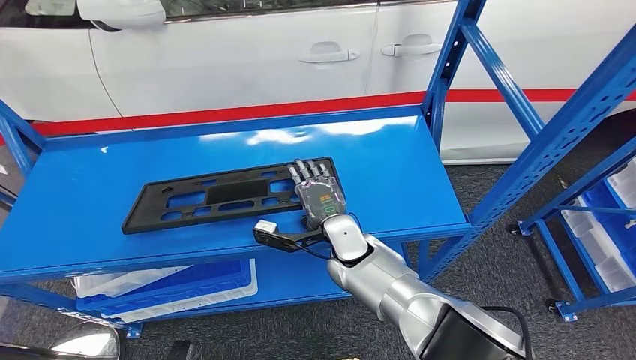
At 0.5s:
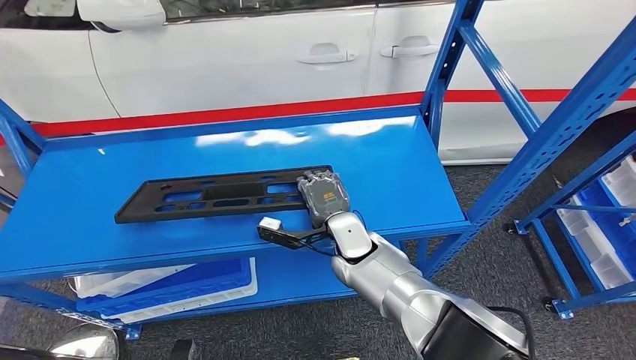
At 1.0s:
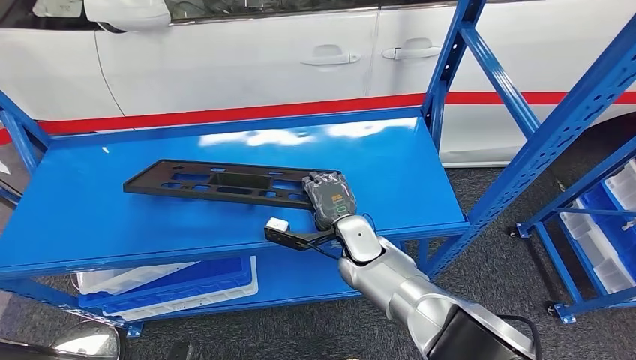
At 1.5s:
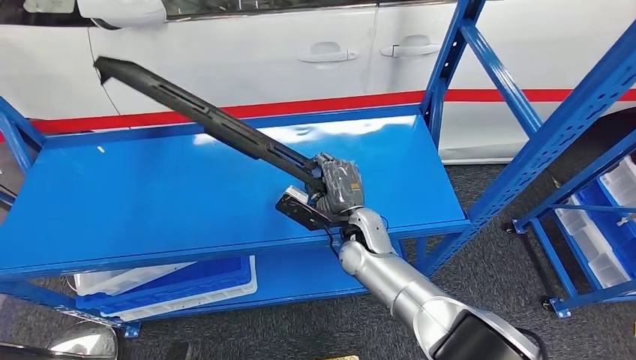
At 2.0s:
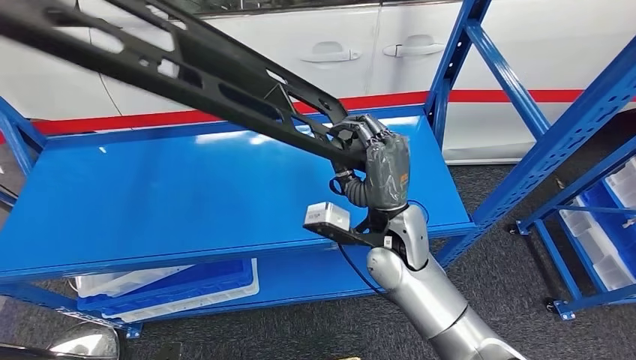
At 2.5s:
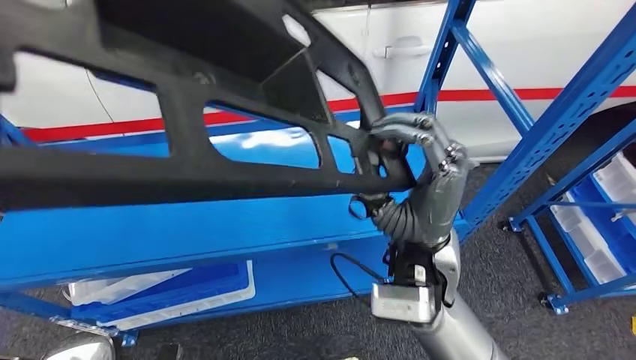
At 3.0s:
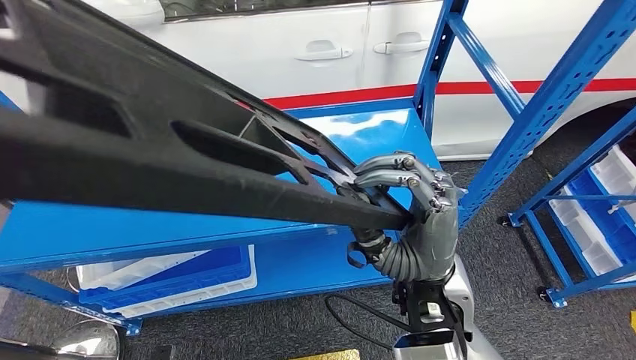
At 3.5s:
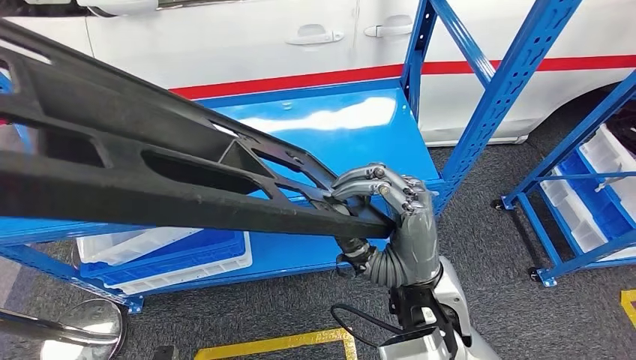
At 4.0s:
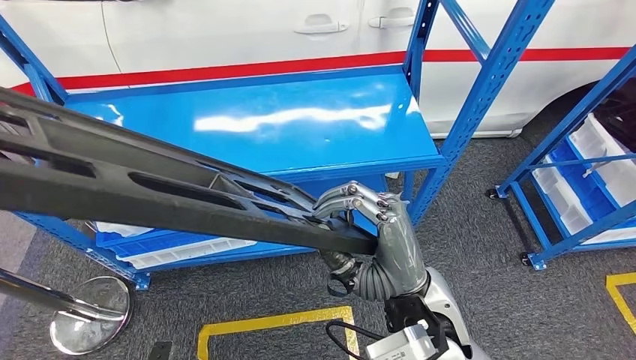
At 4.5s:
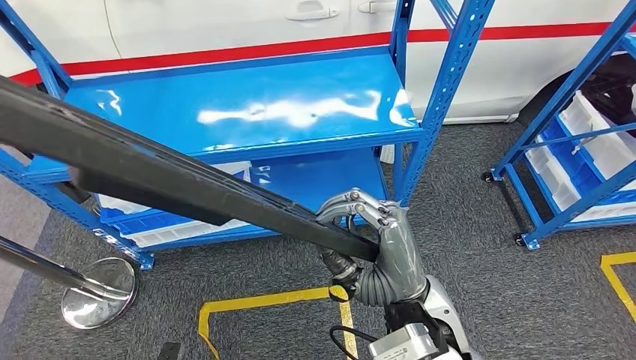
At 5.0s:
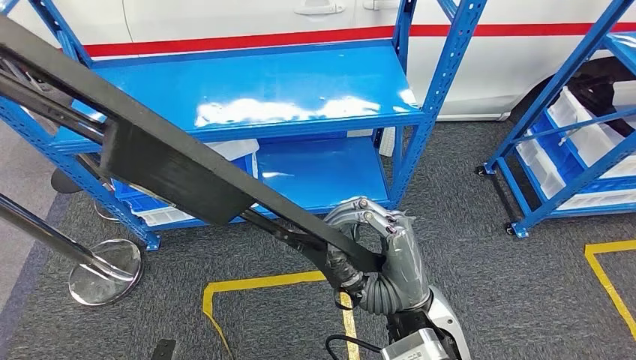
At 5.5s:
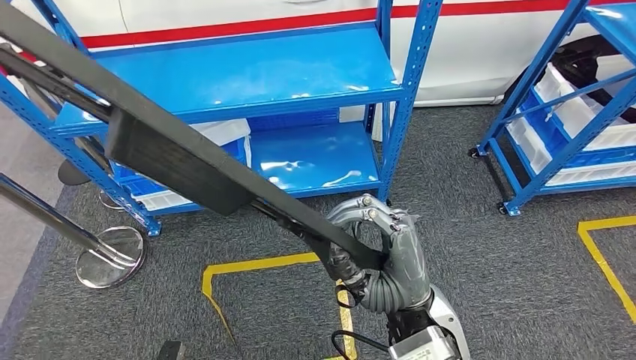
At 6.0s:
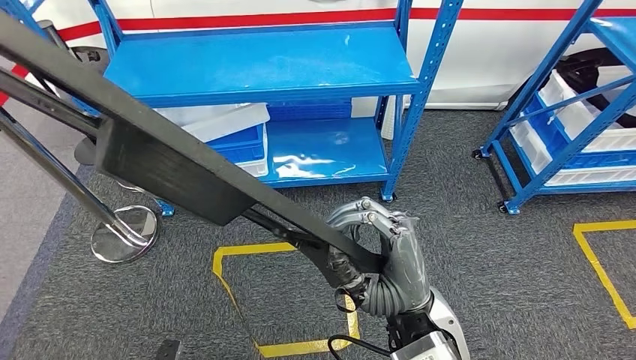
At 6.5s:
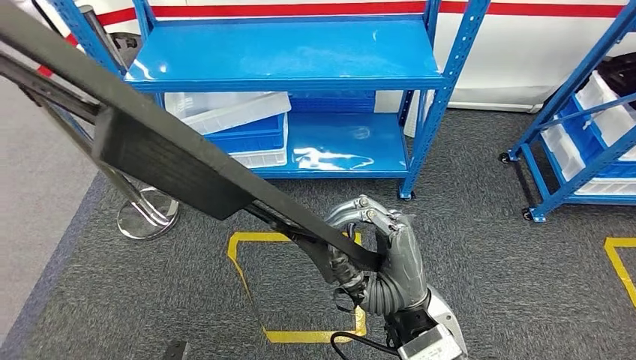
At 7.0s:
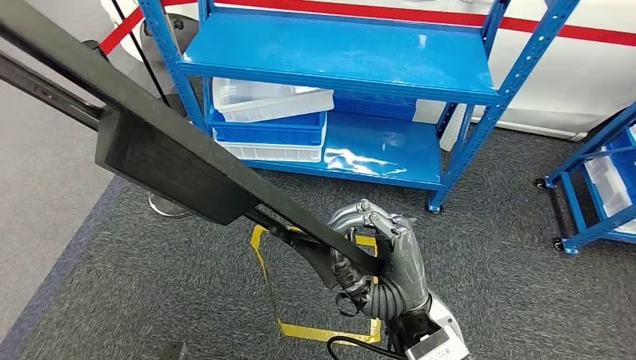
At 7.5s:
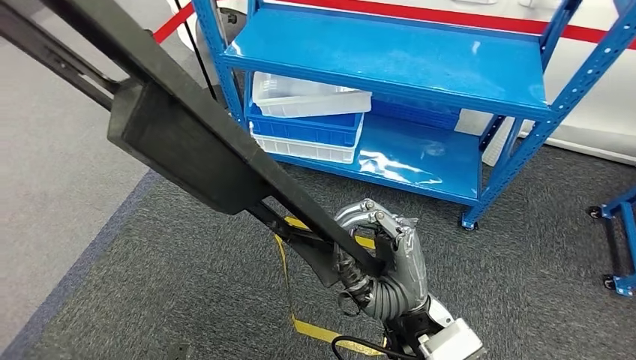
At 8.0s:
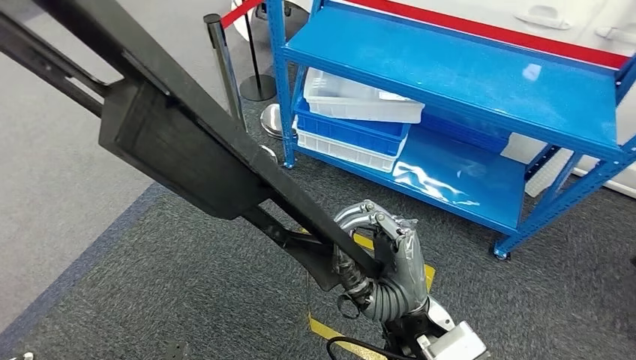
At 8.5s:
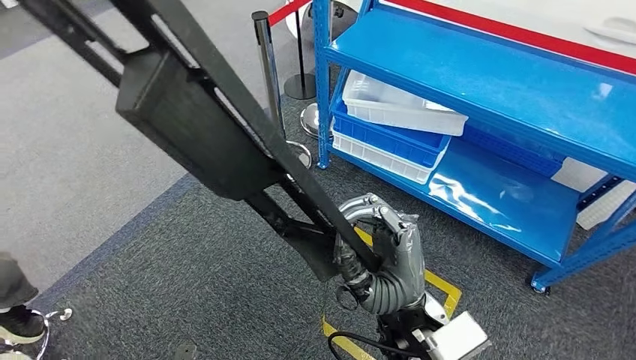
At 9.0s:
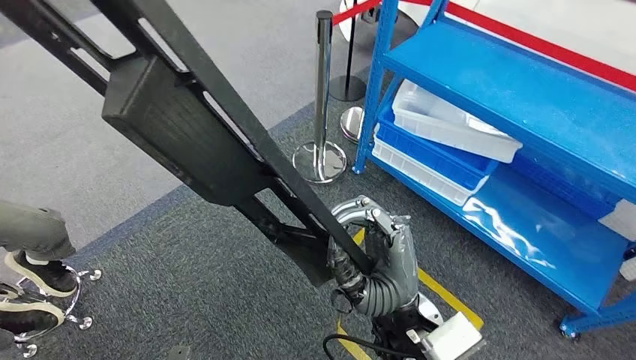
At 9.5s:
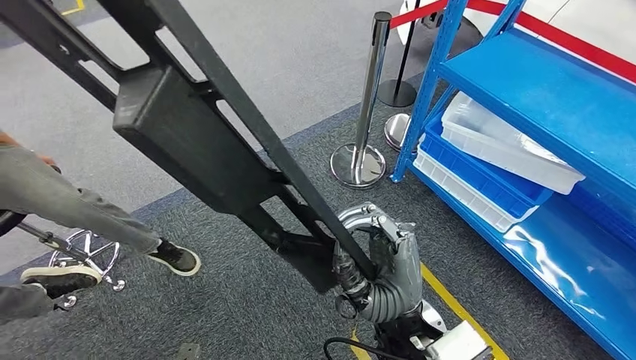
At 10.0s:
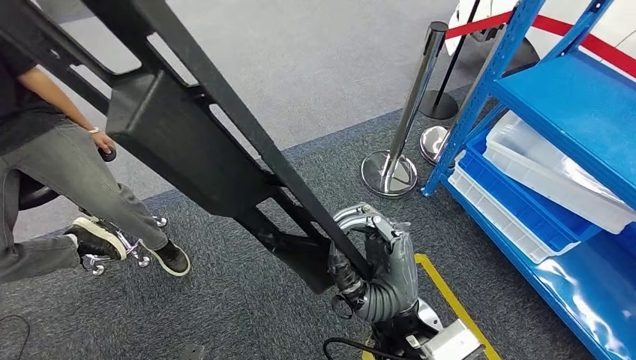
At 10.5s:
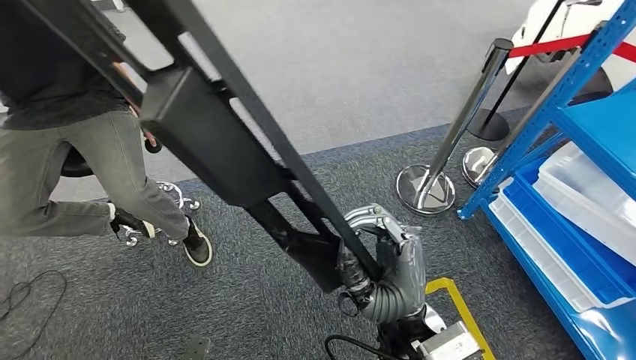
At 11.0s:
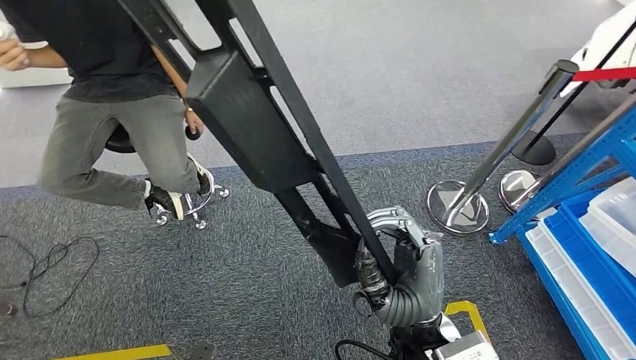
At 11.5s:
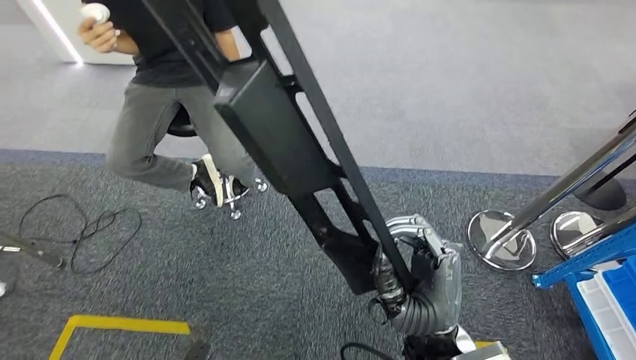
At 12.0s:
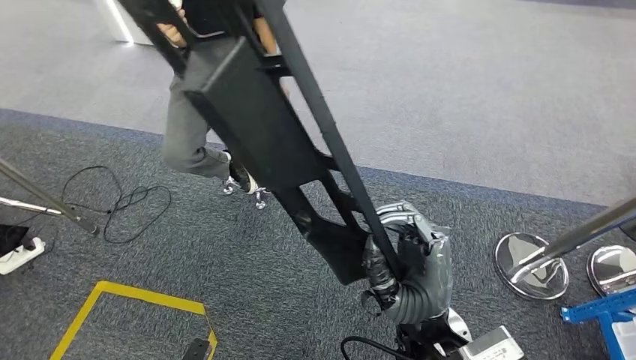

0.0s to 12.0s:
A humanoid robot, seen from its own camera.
Step, 0.0s to 4.5s: Pick up the large material from the shelf.

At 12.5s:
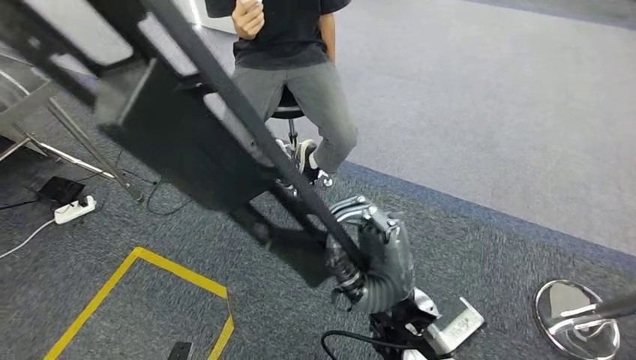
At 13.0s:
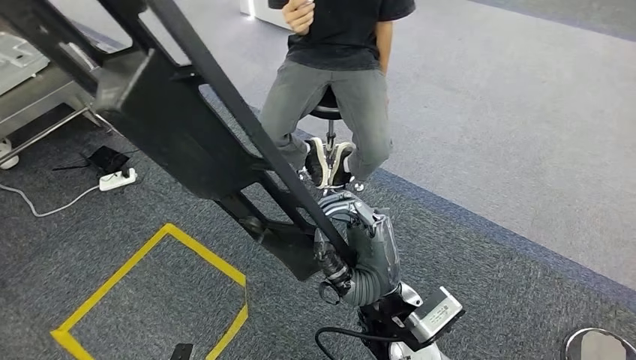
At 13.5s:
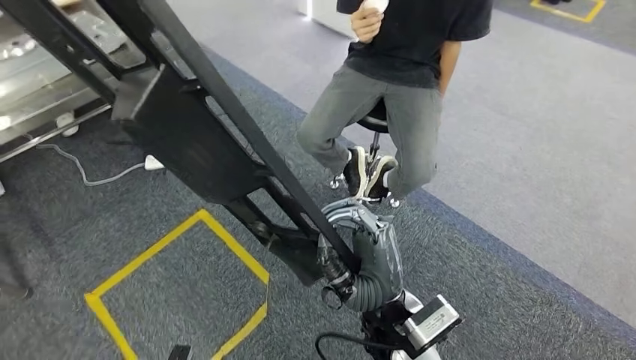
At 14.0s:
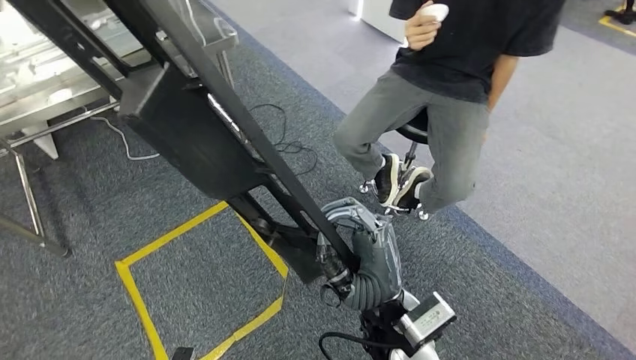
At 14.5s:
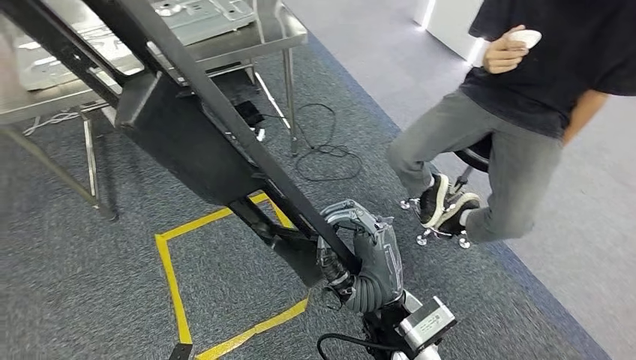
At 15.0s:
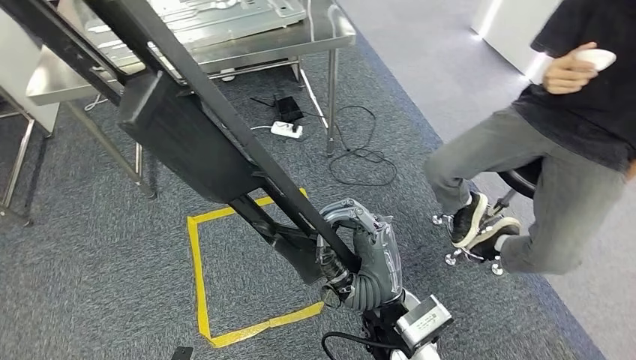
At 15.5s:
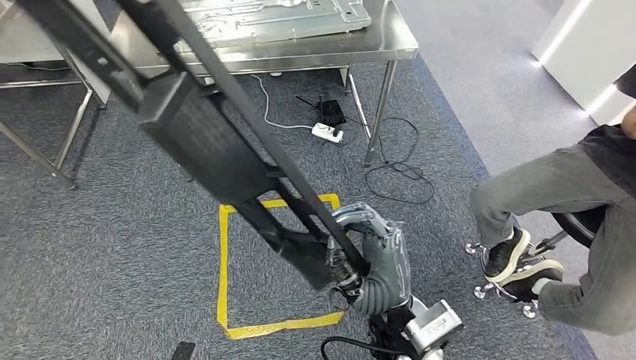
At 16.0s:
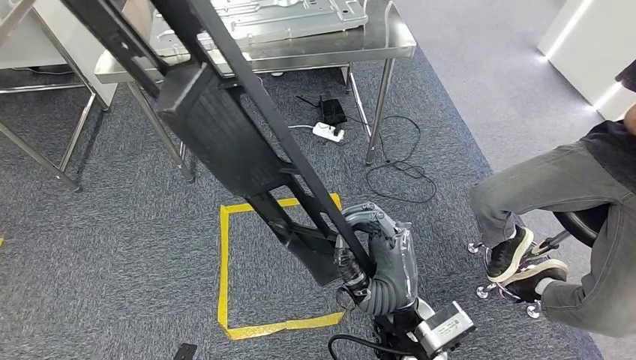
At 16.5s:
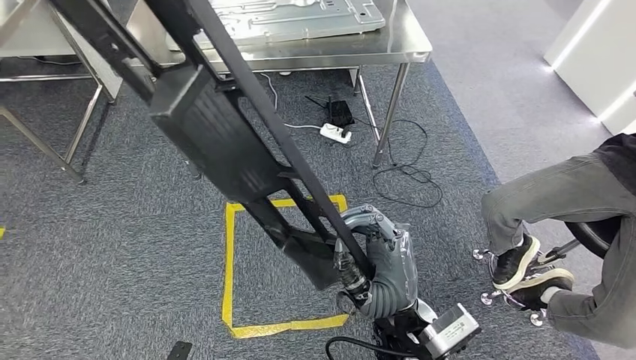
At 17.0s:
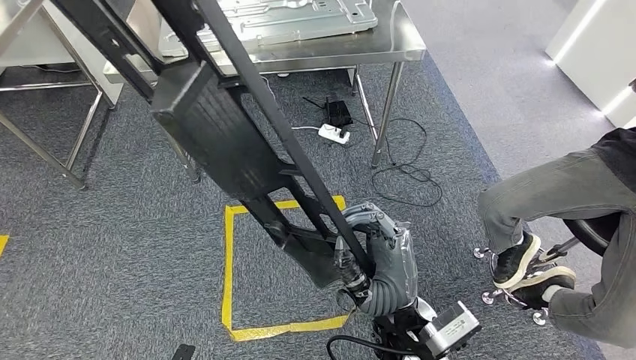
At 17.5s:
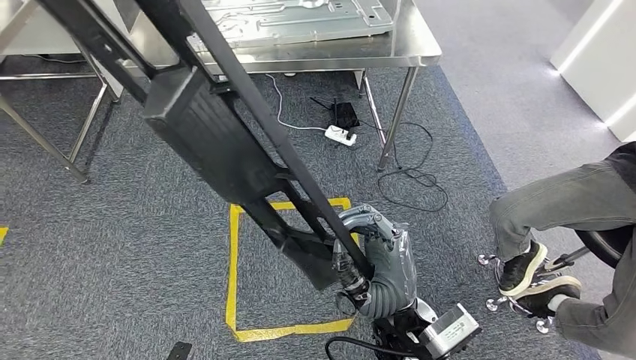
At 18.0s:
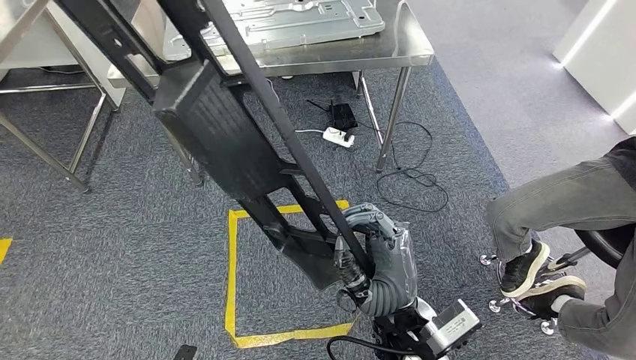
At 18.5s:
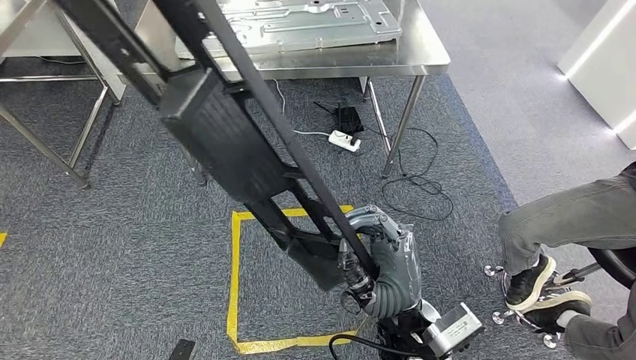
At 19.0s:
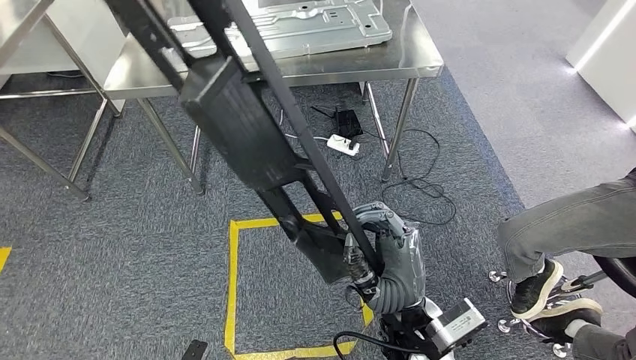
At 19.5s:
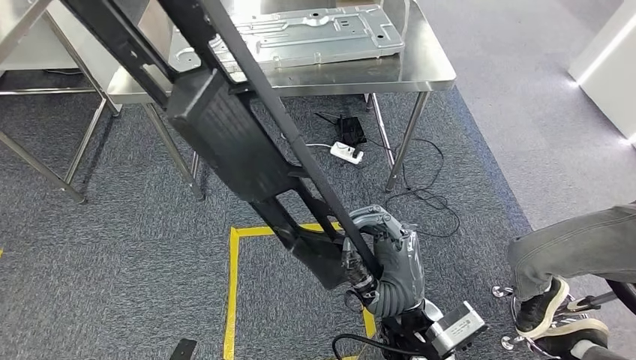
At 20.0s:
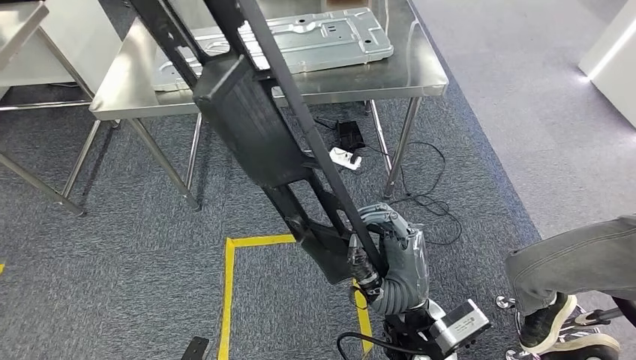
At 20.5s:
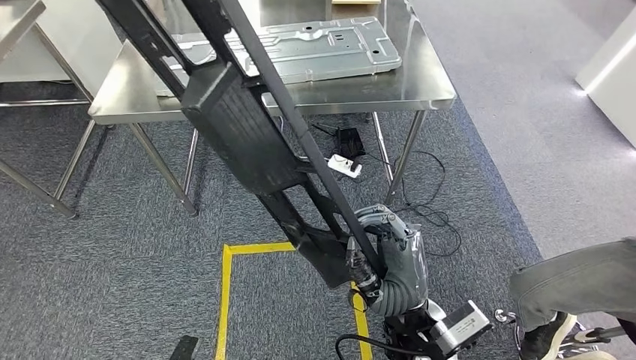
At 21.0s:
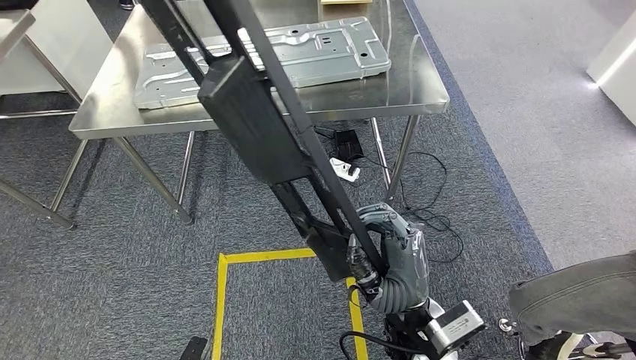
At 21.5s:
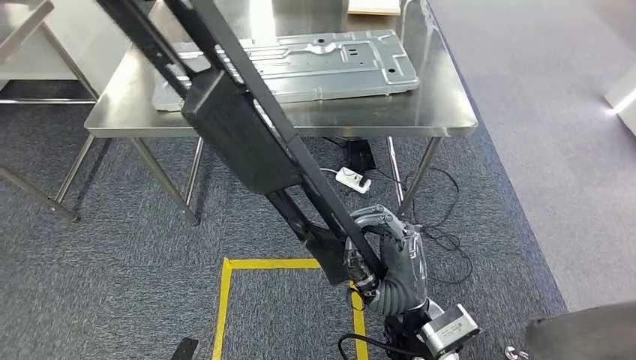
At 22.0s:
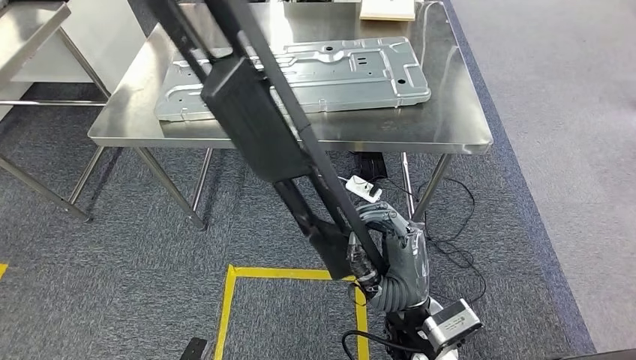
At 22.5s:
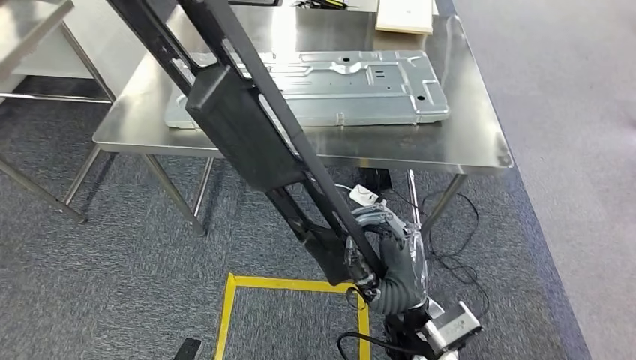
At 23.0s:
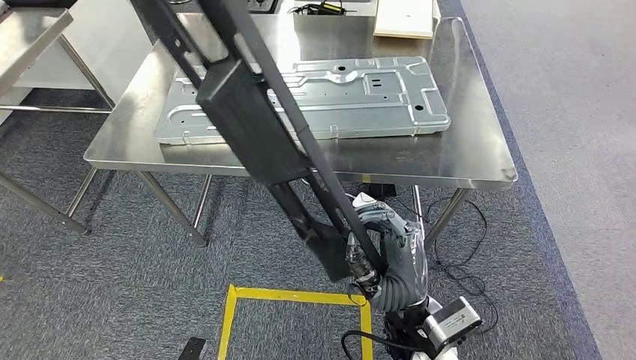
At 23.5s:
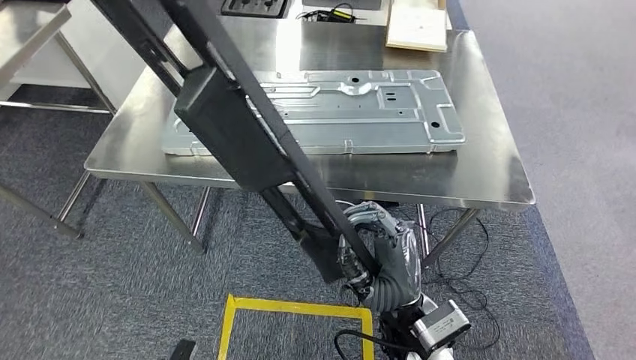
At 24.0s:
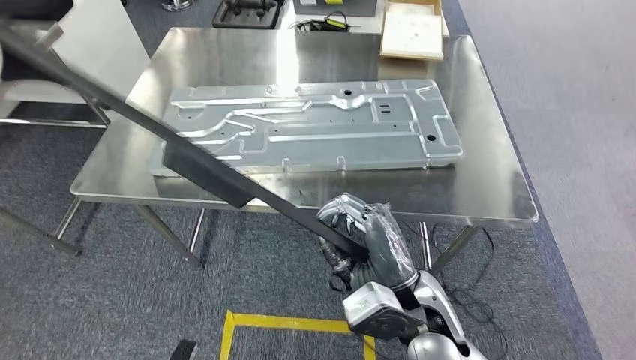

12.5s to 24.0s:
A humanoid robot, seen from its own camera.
Step, 12.5s to 20.0s: Move the large material to the workbench.
